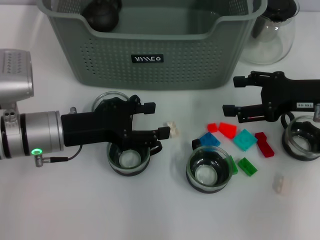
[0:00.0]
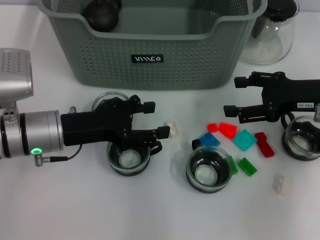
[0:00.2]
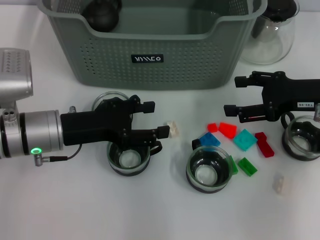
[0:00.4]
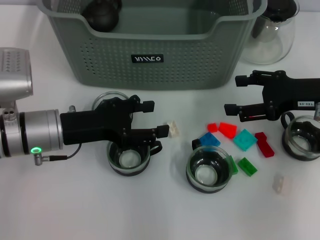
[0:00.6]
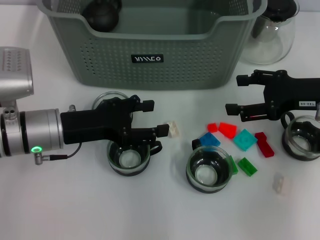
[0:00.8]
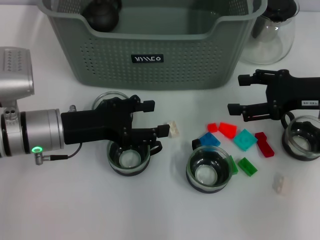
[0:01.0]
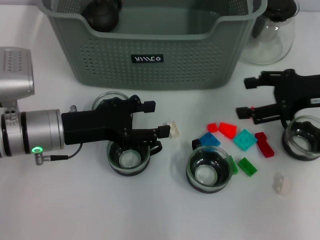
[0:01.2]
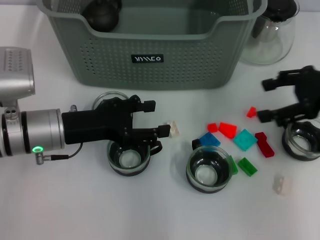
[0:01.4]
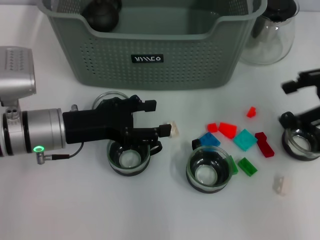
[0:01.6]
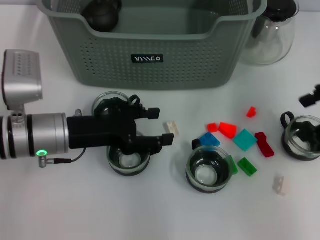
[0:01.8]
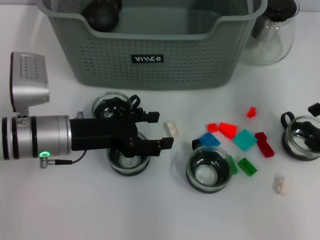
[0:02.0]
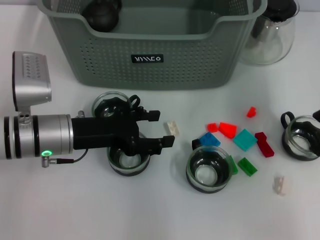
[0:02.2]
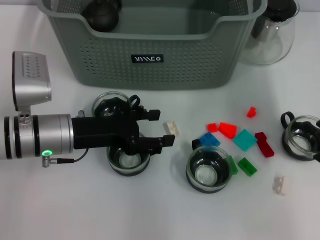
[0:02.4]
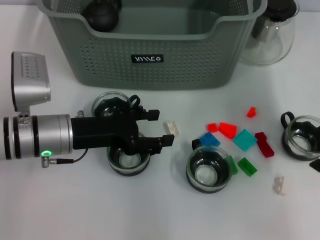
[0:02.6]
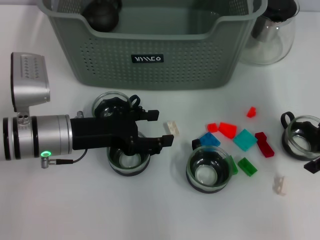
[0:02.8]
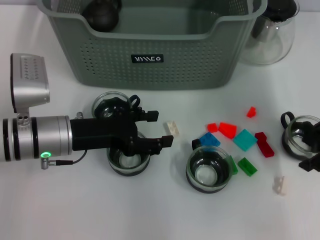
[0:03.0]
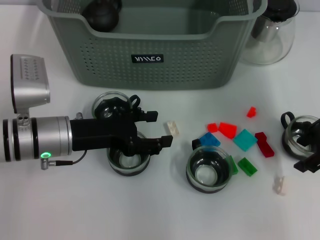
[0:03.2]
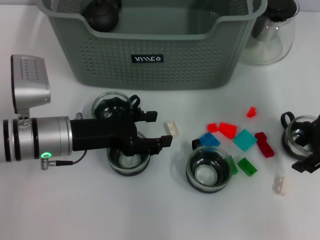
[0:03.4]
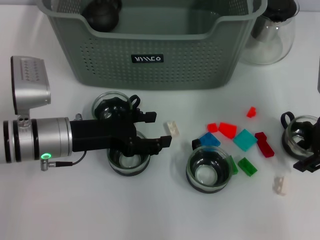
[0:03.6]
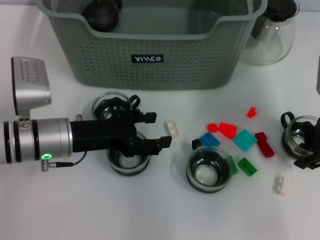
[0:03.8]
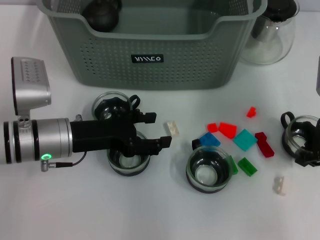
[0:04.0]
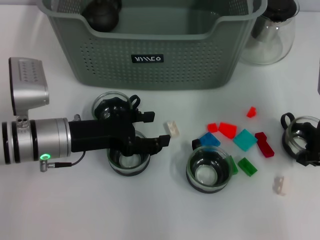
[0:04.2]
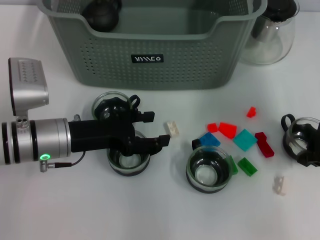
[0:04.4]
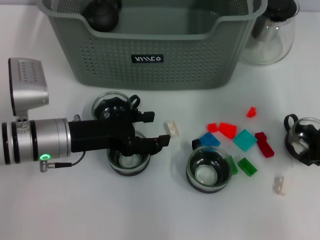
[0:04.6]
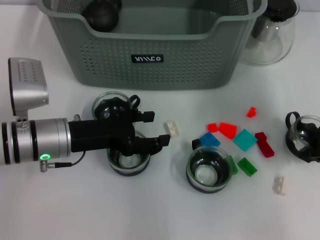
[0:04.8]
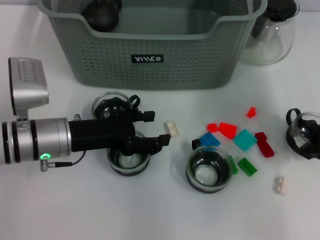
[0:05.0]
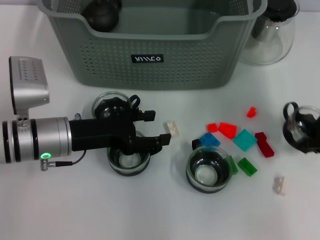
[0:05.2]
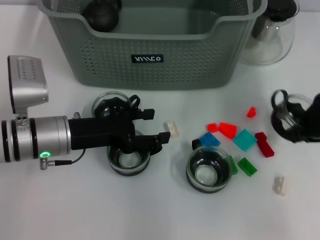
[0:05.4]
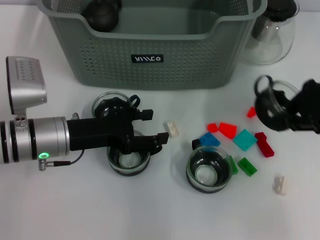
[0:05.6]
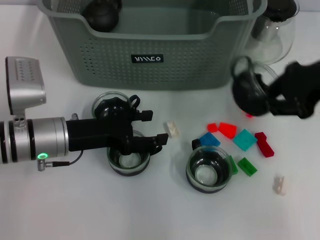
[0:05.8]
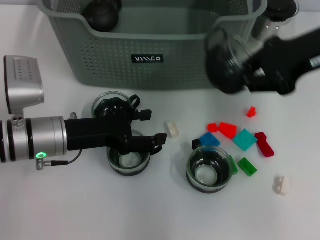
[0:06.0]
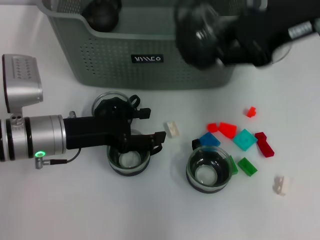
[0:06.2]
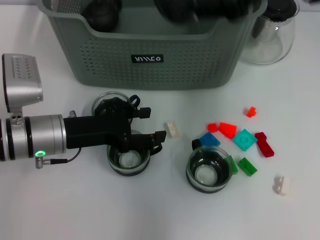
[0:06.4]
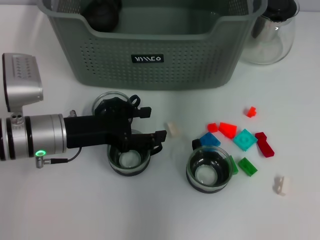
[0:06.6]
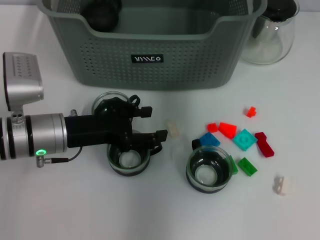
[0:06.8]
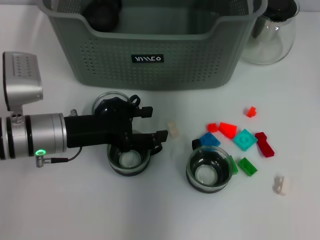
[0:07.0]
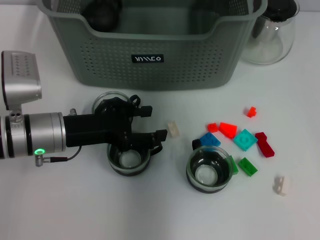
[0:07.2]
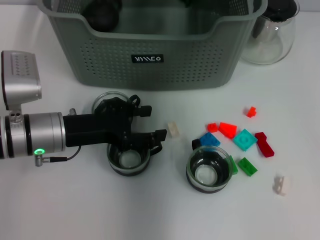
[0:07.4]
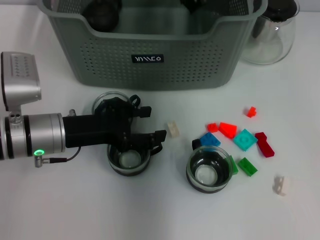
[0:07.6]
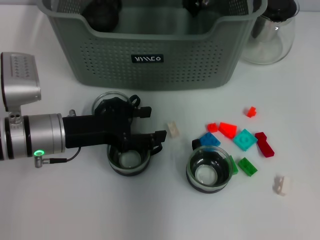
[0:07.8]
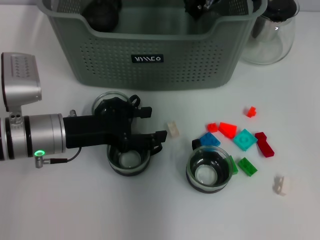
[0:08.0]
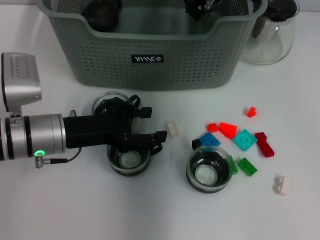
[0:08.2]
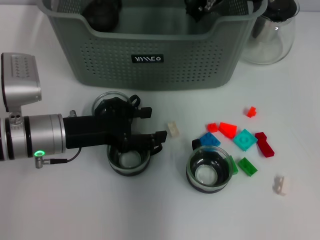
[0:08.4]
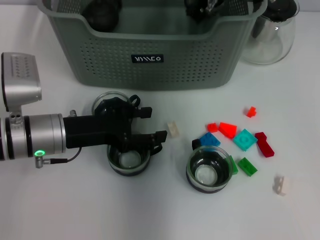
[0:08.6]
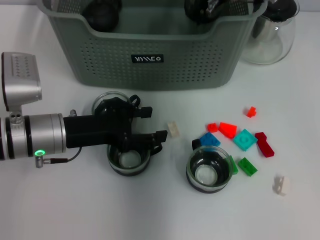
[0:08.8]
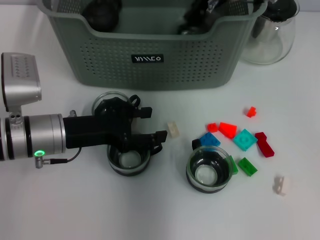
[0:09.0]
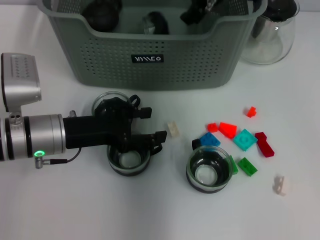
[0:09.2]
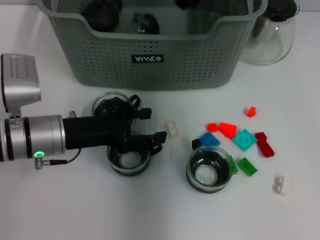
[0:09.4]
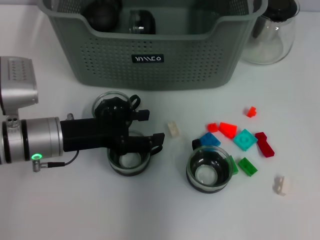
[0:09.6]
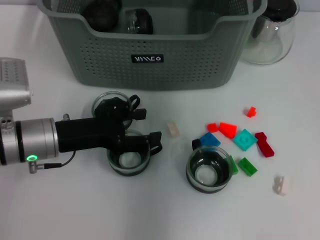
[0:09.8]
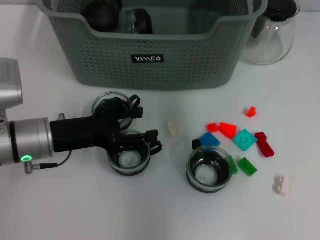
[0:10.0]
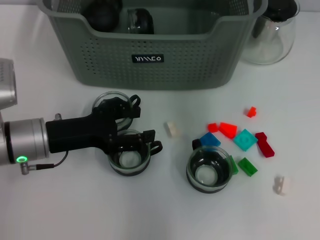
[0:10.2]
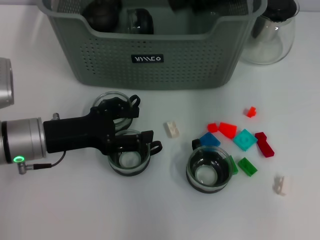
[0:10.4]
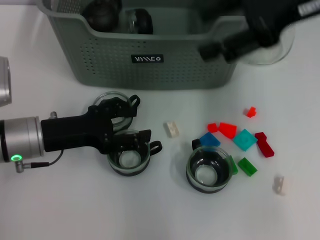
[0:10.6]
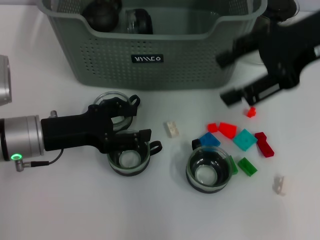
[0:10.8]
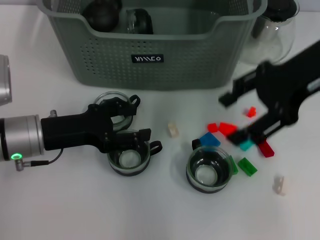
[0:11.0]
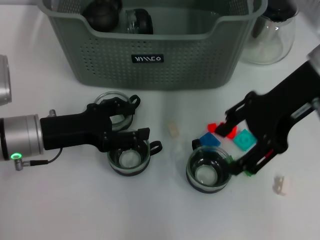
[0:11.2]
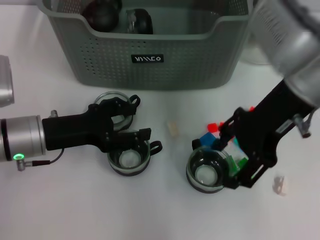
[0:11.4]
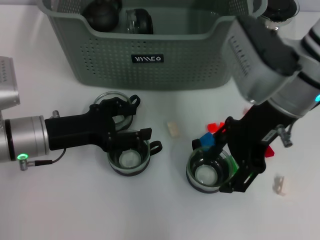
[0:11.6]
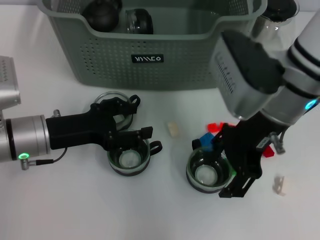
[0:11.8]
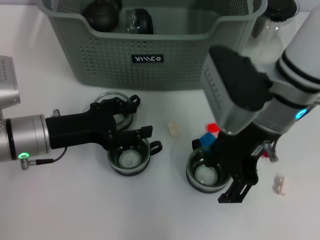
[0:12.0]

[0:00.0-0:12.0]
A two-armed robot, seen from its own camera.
Task of the whole recording: pick up the teacup on the table and place it into the storage bin, pick up the block on the table and place it into the storage bin.
Step, 0:00.0 to 0:04.4: Grasp the cup with right gripper.
Step, 0:04.6 to 0:09.0: Place the cup in the storage box with right gripper.
0:00.0 to 0:01.6: The right gripper travels upward by approximately 10 cm.
0:03.0 to 0:04.4: The right gripper closes its fingers.
0:04.4 to 0:06.0: The right gripper moves upward, roughly 10 cm.
0:06.0 to 0:07.6: The right gripper heads to the left and forward, covering some 20 cm.
0:07.6 to 0:09.0: Both grippers stay about where they are.
0:09.0 to 0:10.4: The right gripper is displaced upward, to the right and backward by about 15 cm, and opens up.
0:10.4 to 0:12.0: The right gripper goes approximately 15 cm downward, backward and to the left.

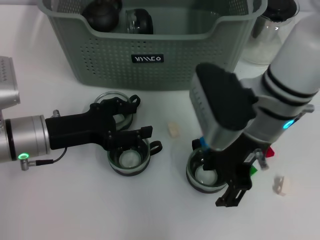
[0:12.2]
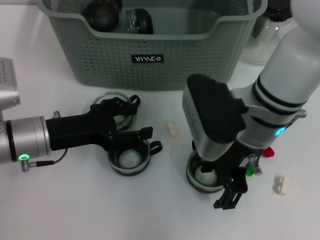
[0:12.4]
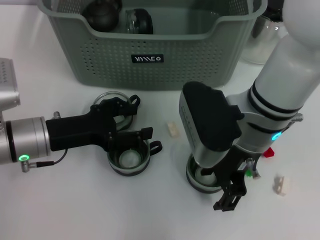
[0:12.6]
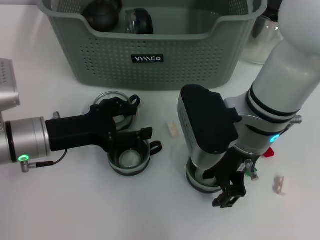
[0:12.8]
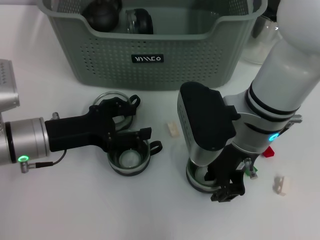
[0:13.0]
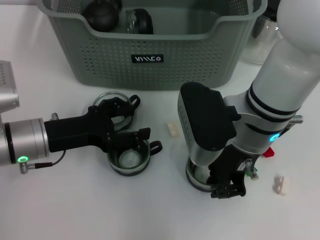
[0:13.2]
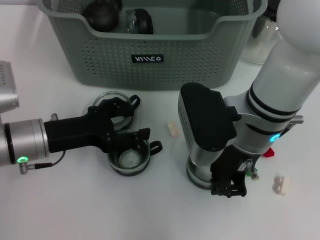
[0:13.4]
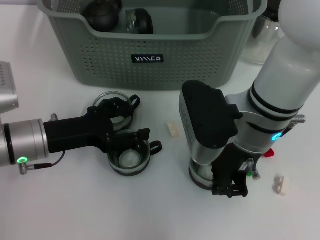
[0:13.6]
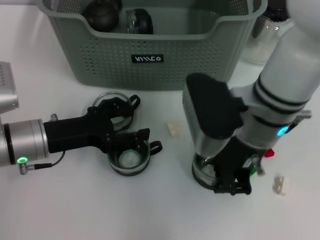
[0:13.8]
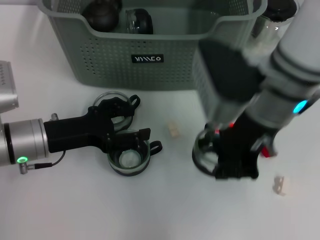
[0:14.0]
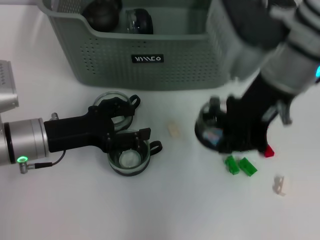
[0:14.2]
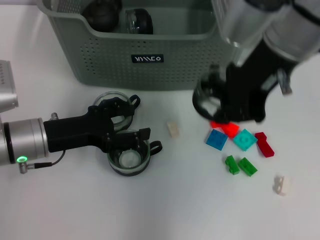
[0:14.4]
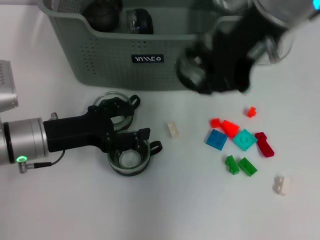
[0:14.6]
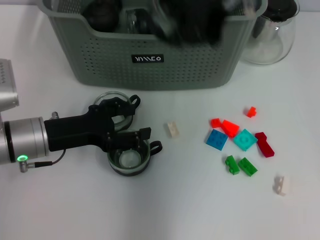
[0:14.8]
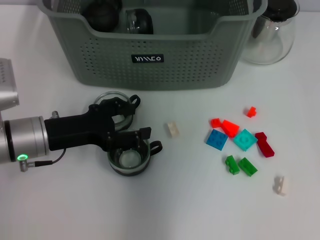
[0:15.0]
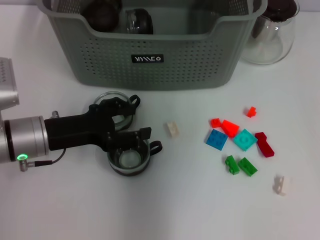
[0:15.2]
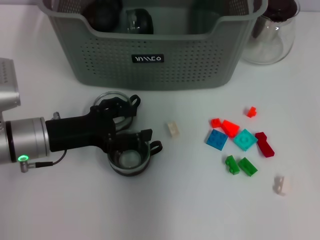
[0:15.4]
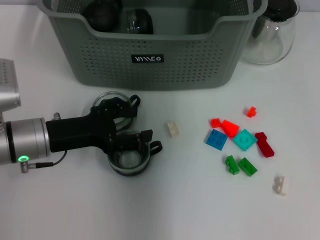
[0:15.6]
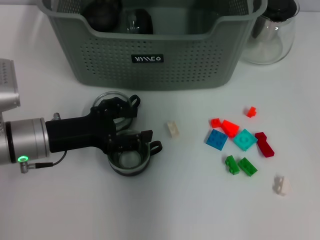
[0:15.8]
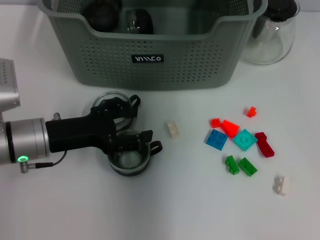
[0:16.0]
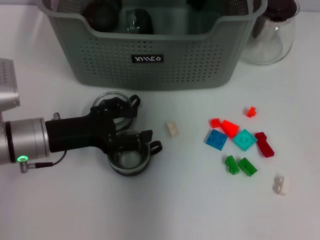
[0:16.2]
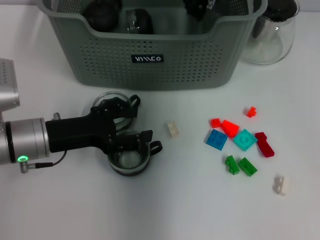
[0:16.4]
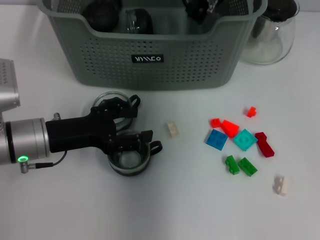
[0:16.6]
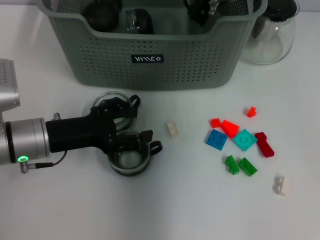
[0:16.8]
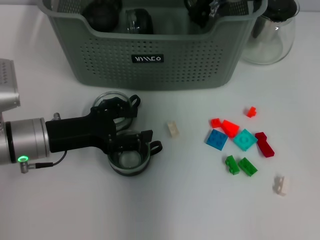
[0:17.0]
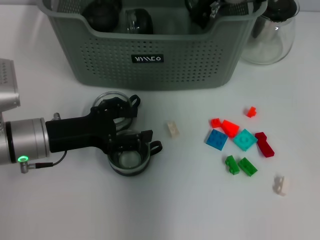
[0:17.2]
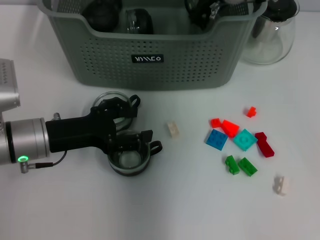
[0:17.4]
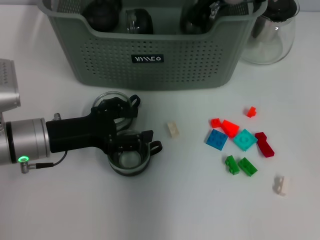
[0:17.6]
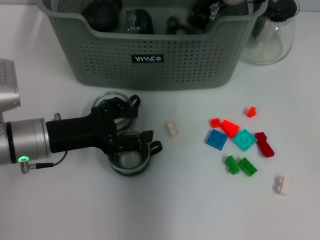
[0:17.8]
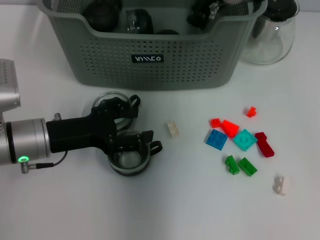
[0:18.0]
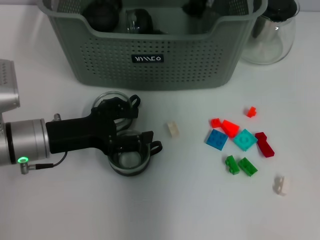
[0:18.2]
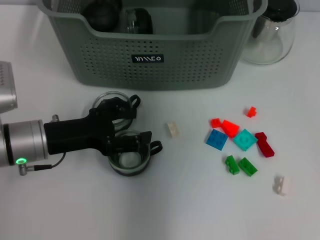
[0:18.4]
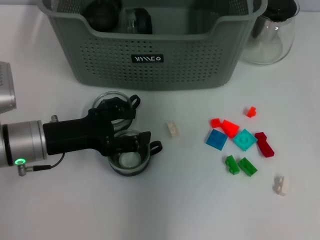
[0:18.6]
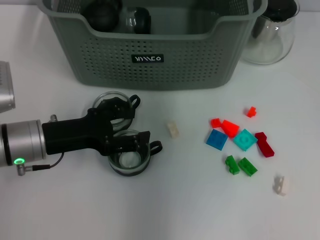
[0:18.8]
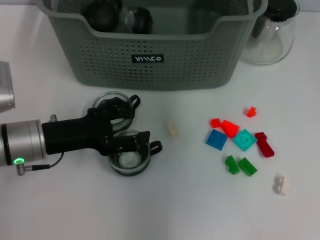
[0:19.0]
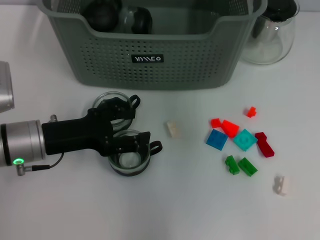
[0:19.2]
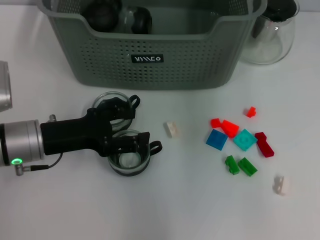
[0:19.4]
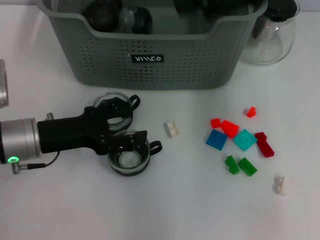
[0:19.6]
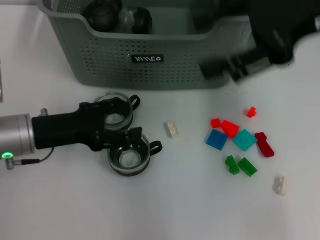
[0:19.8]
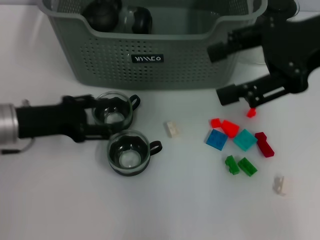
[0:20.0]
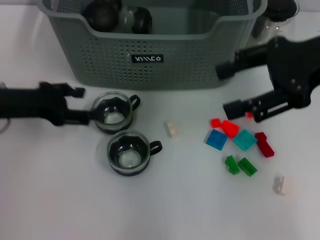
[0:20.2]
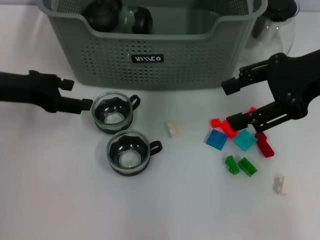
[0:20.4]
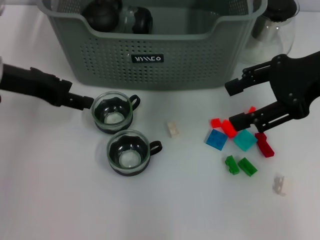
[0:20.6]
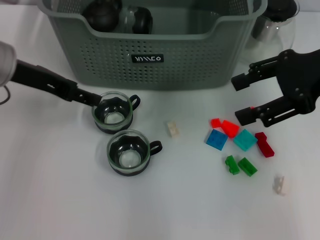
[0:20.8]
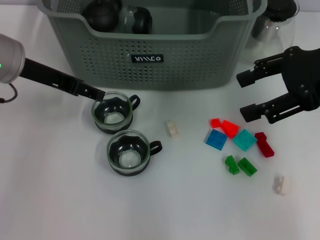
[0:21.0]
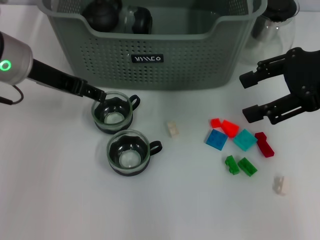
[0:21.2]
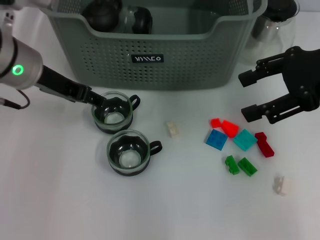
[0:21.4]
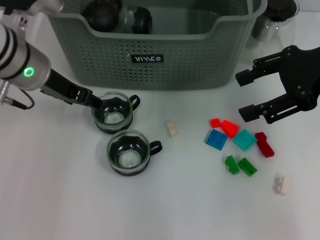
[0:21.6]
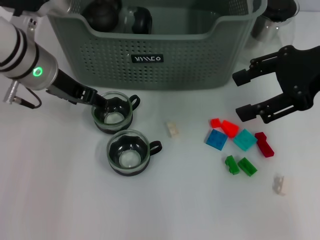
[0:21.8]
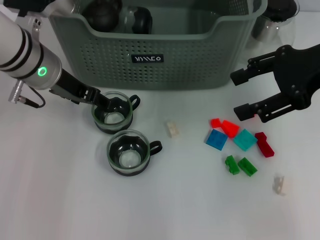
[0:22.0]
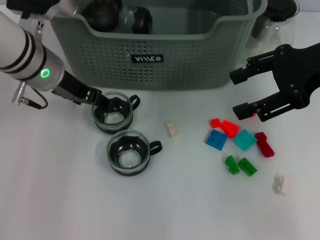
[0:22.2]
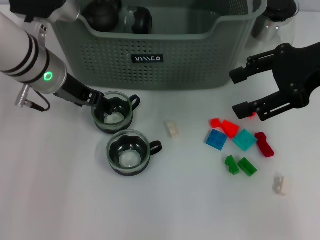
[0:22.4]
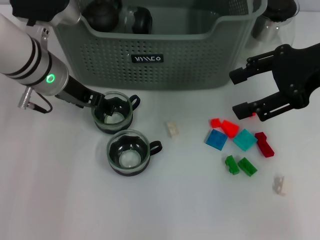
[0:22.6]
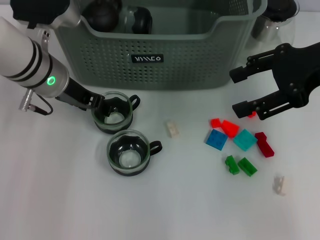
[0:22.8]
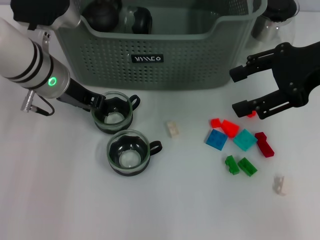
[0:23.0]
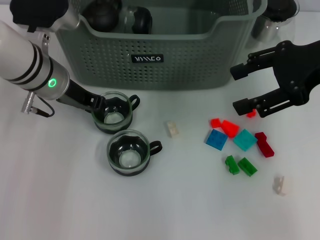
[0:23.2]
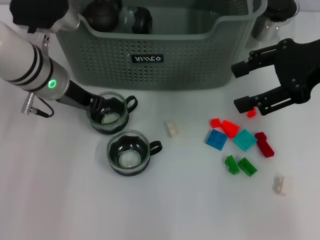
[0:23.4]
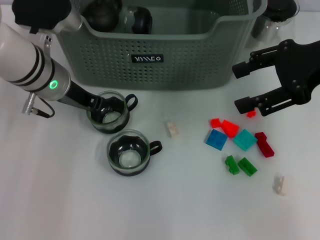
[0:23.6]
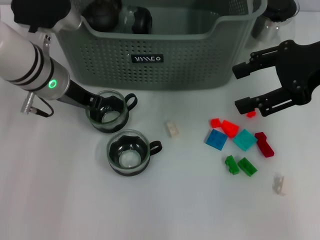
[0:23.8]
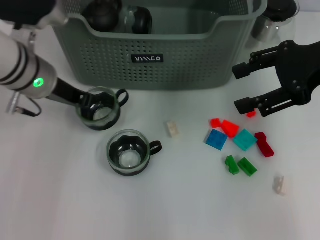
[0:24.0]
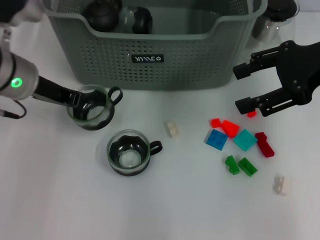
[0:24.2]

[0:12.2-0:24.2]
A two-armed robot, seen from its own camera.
Task of the whole recording: pick up the teacup on the table and place it into the storage bin, pick up the block on the table and place it into the storage bin.
Step, 0:13.6 to 0:17.6: Place the cup in the storage box with right gripper.
Step, 0:18.0 to 0:23.6: Grasp the cup with left gripper.
0:12.2 to 0:13.8: The right gripper closes up.
0:13.8 to 0:15.2: The right gripper goes roughly 20 cm upward and forward.
0:15.2 to 0:16.6: The right gripper moves downward, approximately 15 cm.
0:18.2 to 0:19.8: The right gripper is displaced backward, to the right and upward by some 20 cm, and opens up.
0:19.8 to 0:21.2: The right gripper shifts approximately 5 cm downward, while the left gripper is displaced upward and forward by approximately 15 cm.
0:21.2 to 0:22.6: The left gripper moves some 5 cm.
0:22.6 to 0:24.2: The left gripper closes.
